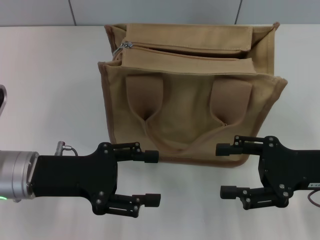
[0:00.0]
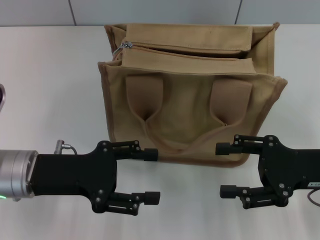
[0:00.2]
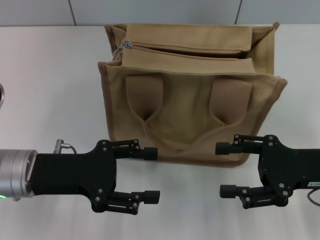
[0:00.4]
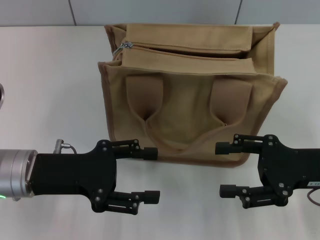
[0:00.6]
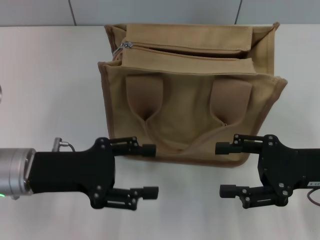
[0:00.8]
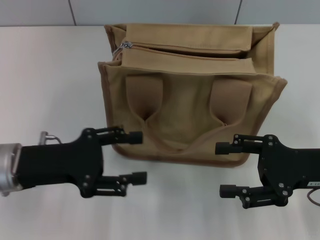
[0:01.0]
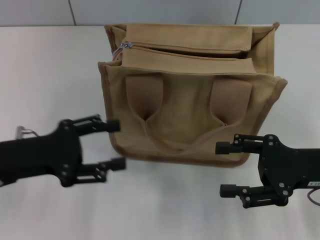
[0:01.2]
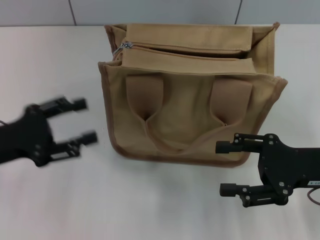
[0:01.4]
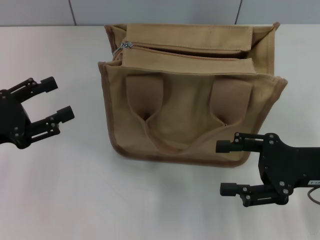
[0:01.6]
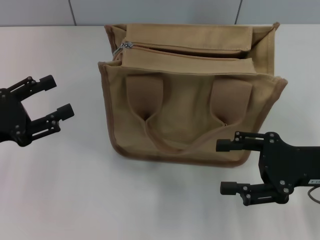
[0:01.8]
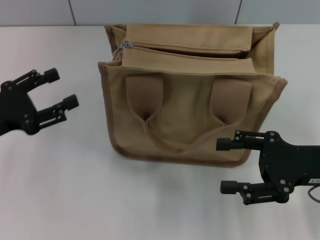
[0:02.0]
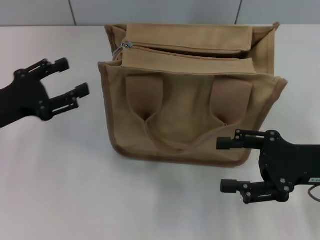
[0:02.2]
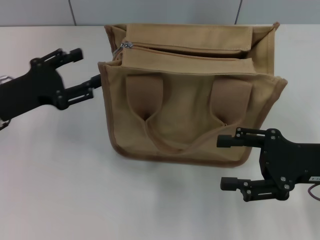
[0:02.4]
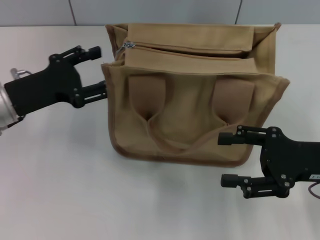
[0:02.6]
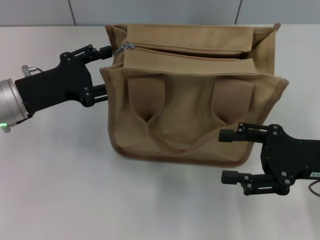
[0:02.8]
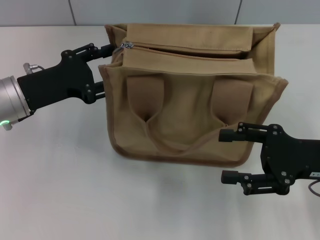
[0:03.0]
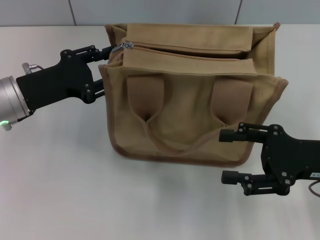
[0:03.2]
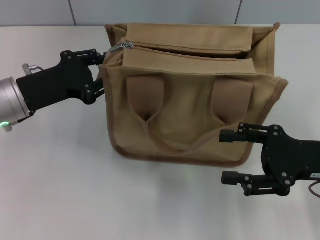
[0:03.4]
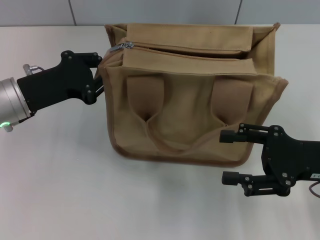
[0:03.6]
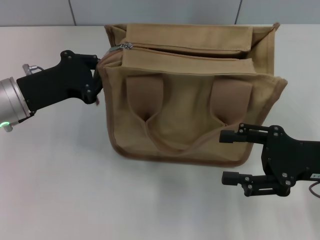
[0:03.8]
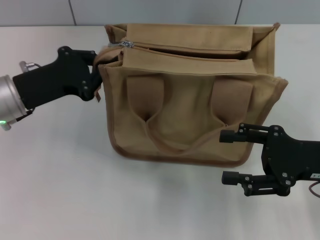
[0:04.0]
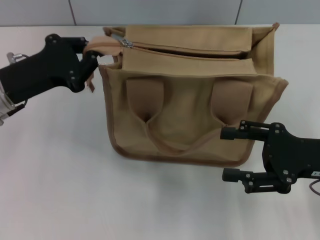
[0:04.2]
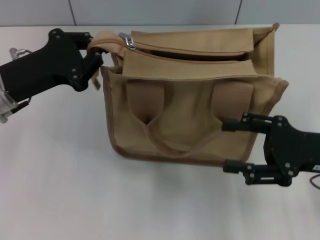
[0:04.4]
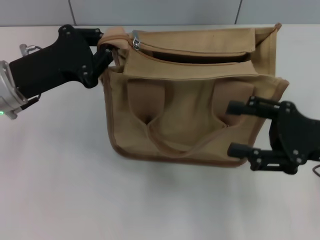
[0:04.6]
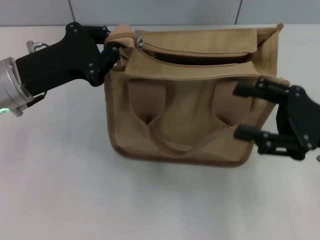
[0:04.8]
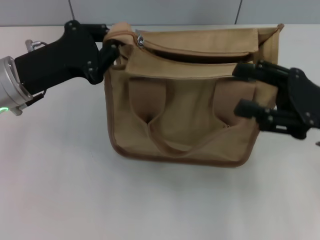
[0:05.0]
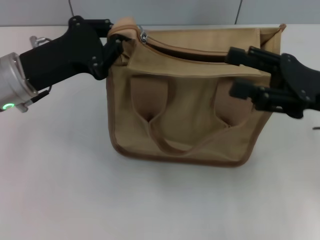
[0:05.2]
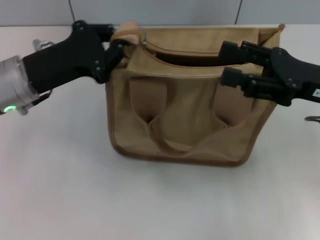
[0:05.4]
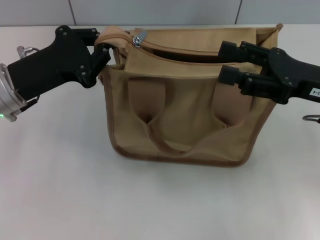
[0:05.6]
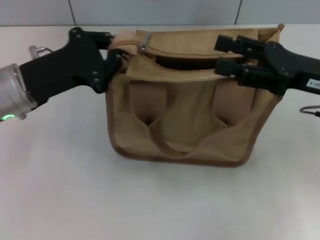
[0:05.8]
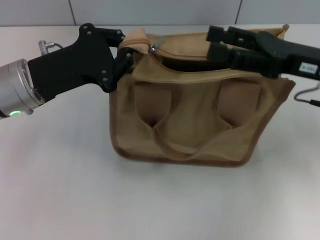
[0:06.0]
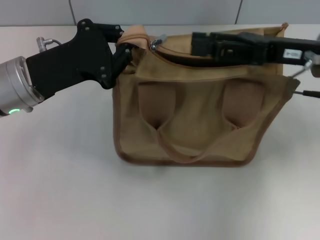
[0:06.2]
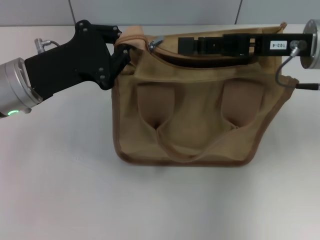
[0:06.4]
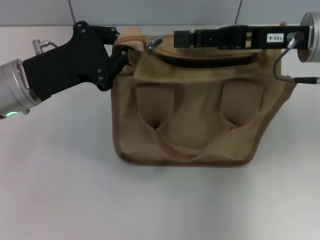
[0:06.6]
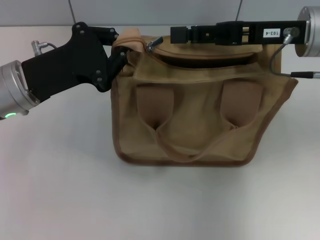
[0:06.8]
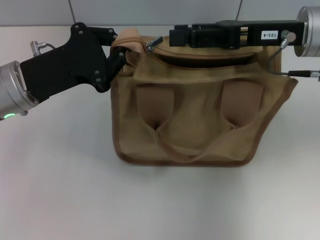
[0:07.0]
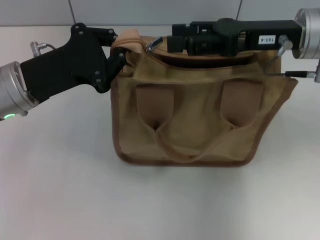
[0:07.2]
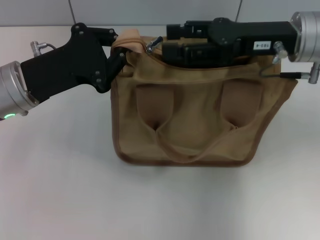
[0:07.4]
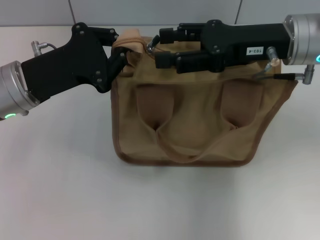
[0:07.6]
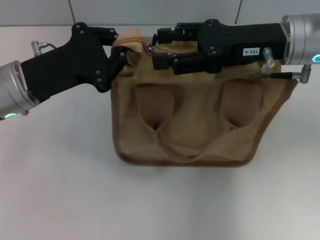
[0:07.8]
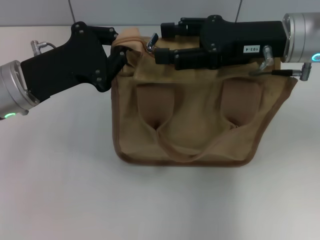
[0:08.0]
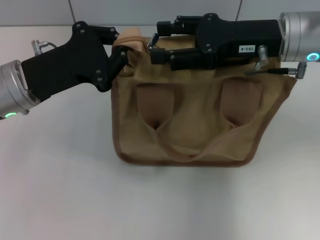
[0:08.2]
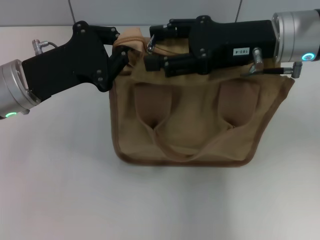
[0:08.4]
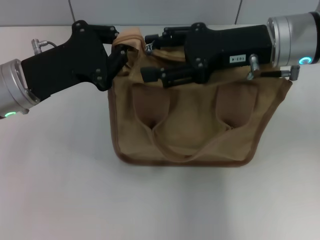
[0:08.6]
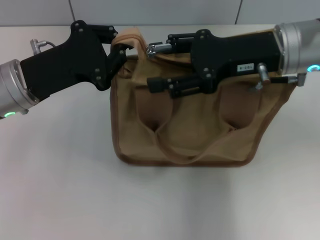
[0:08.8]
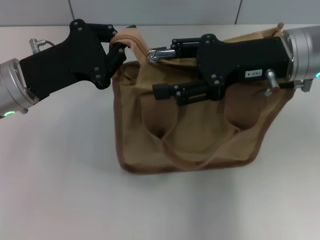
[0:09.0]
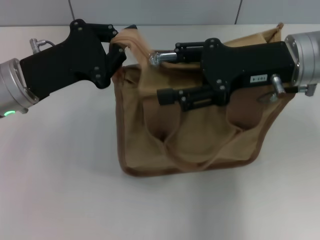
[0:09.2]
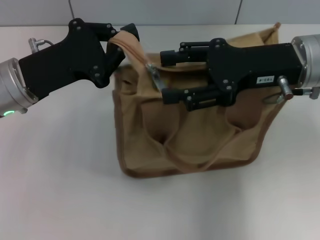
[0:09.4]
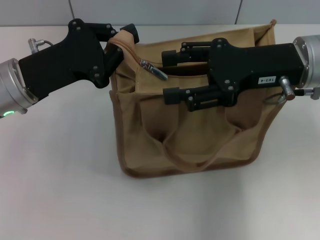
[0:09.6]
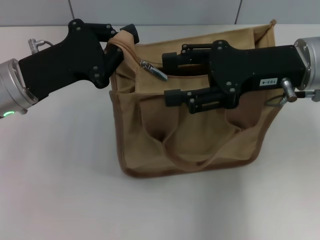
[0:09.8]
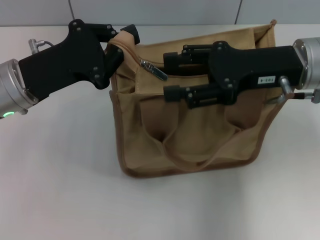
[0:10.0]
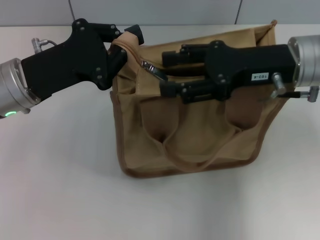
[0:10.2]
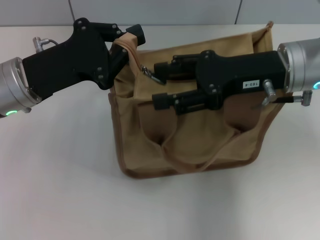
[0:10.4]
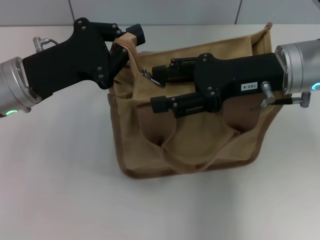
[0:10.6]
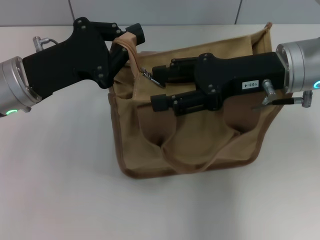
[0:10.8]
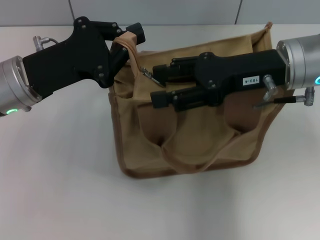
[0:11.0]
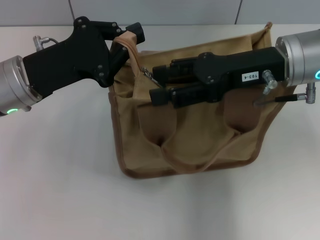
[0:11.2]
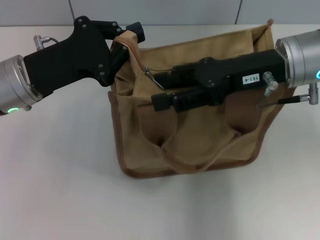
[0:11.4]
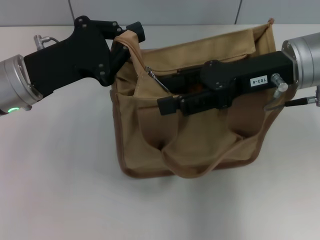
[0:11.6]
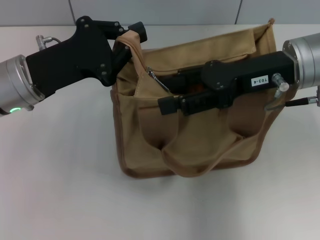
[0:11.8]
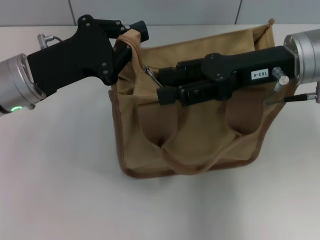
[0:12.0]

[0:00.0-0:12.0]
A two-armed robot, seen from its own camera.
0:00.0 to 0:01.6: The left gripper shifts roughly 10 cm to the left.
0:01.6 to 0:03.0: The left gripper is displaced forward and to the right by approximately 10 cm.
0:03.0 to 0:04.4: The left gripper closes.
0:04.4 to 0:06.0: The right gripper shifts some 10 cm forward and upward.
0:06.0 to 0:07.6: The right gripper moves to the left, some 5 cm.
0:07.6 to 0:12.0: The grippers move only a little.

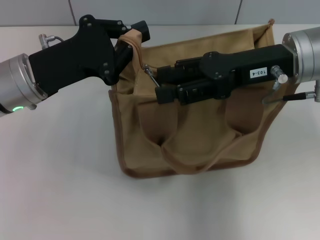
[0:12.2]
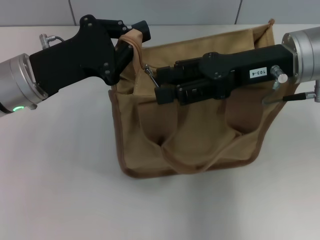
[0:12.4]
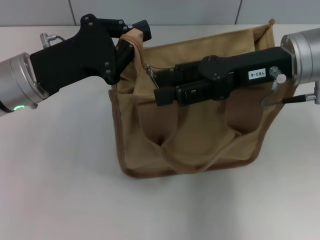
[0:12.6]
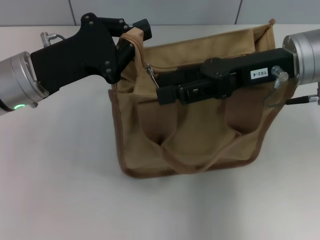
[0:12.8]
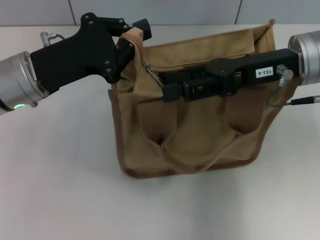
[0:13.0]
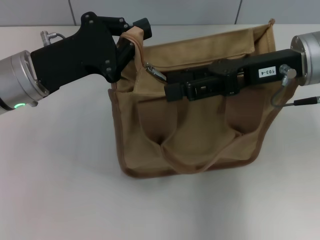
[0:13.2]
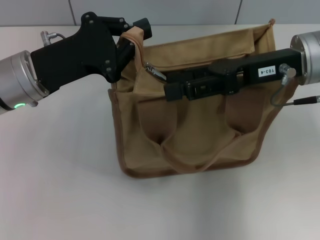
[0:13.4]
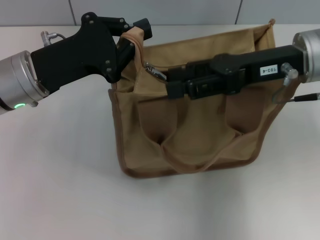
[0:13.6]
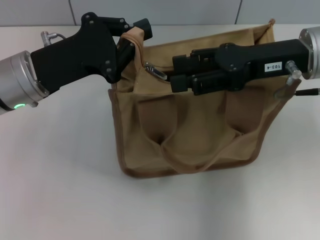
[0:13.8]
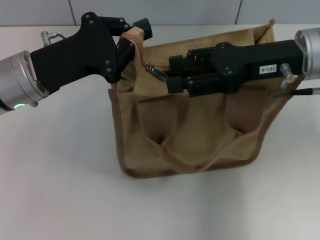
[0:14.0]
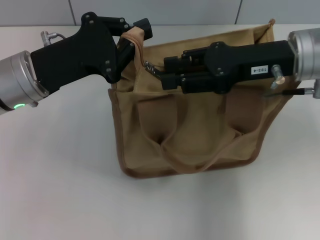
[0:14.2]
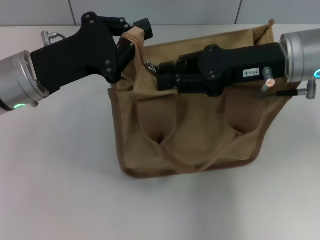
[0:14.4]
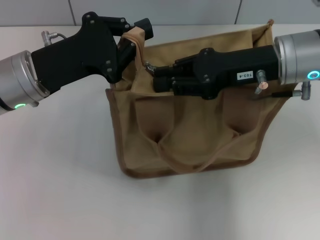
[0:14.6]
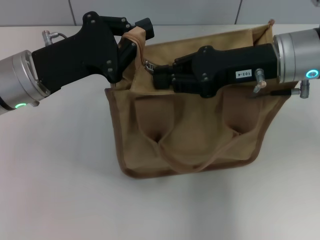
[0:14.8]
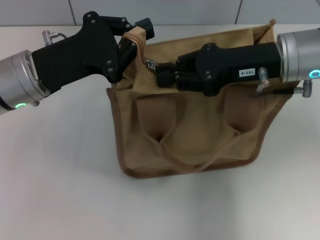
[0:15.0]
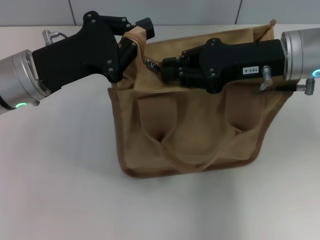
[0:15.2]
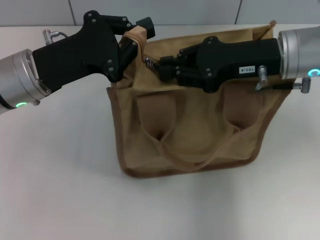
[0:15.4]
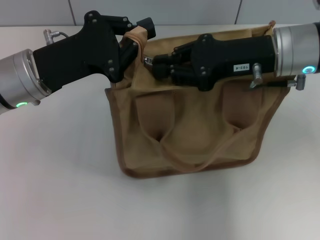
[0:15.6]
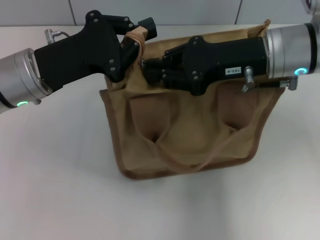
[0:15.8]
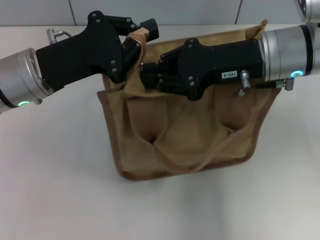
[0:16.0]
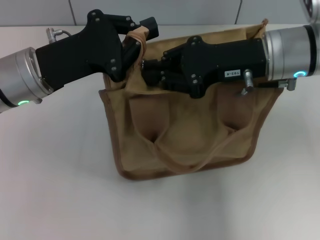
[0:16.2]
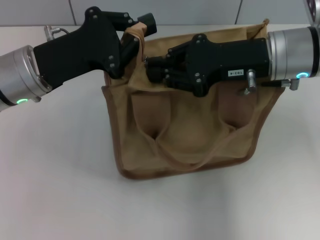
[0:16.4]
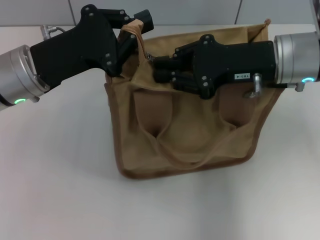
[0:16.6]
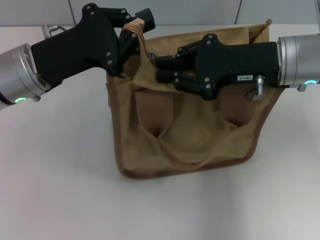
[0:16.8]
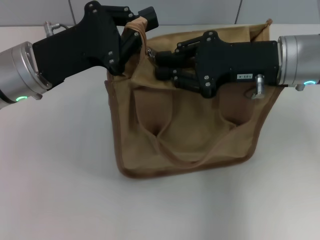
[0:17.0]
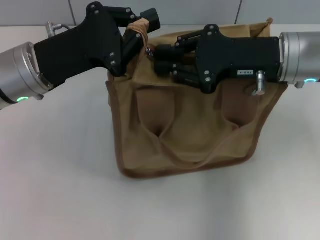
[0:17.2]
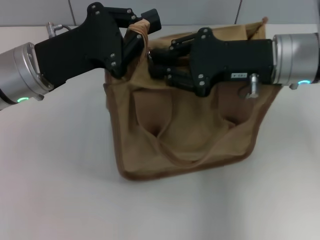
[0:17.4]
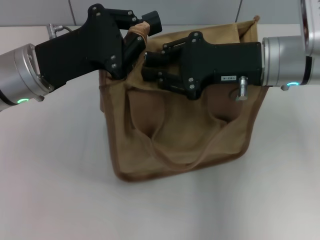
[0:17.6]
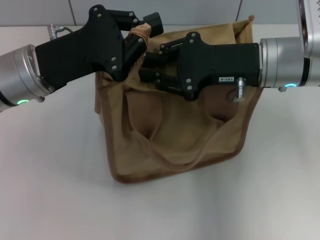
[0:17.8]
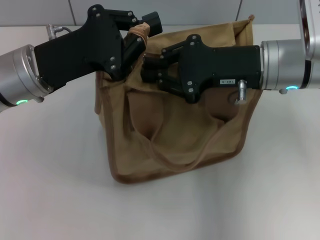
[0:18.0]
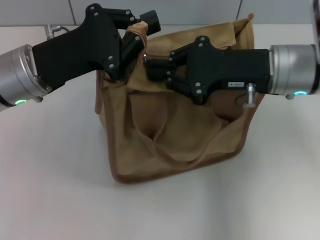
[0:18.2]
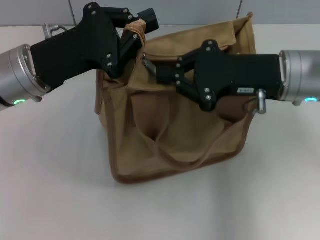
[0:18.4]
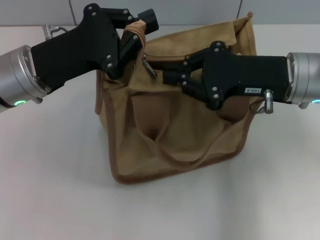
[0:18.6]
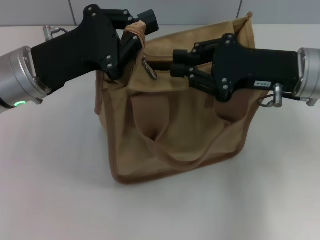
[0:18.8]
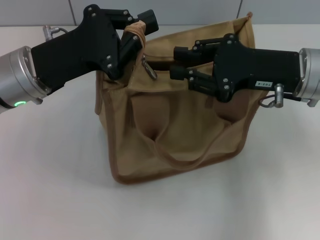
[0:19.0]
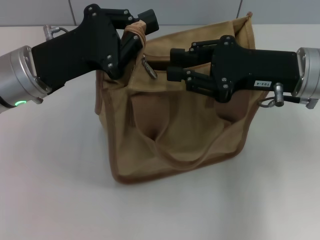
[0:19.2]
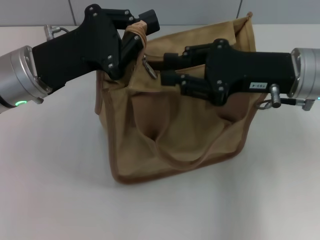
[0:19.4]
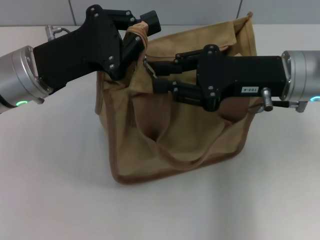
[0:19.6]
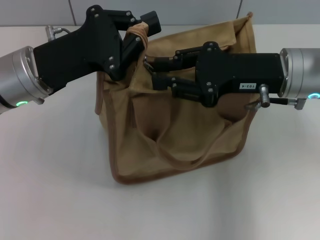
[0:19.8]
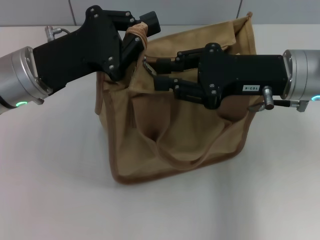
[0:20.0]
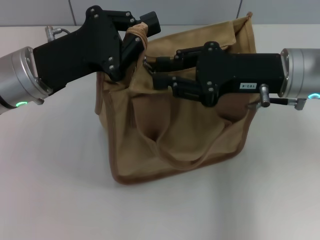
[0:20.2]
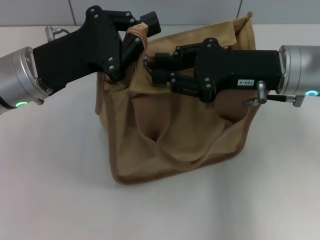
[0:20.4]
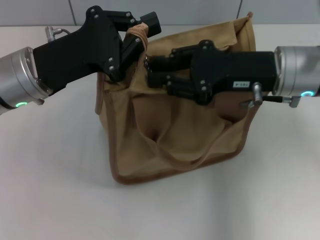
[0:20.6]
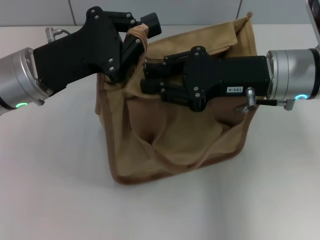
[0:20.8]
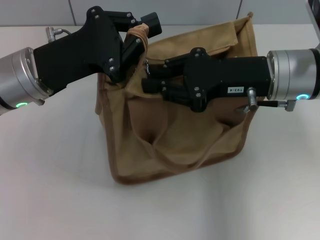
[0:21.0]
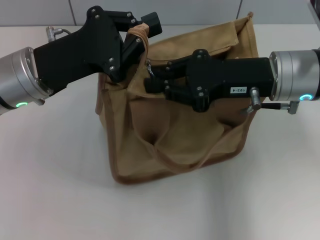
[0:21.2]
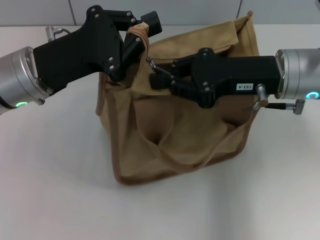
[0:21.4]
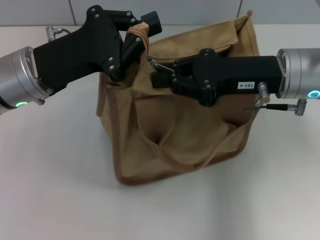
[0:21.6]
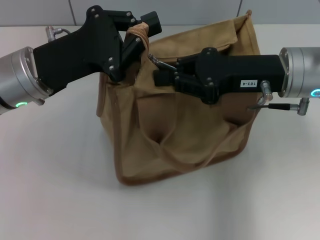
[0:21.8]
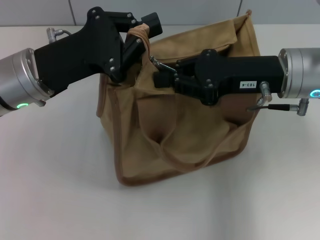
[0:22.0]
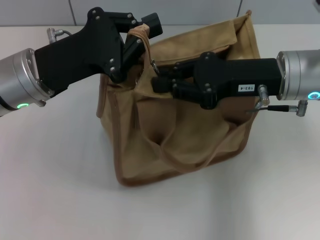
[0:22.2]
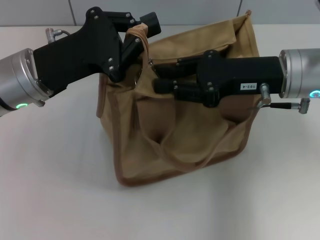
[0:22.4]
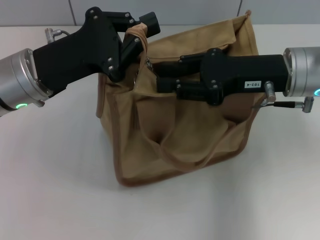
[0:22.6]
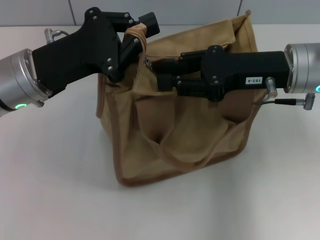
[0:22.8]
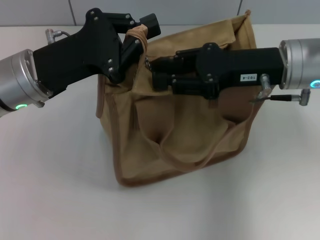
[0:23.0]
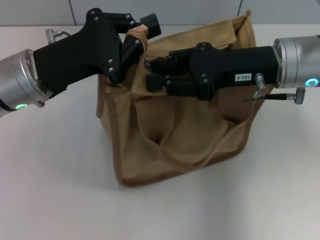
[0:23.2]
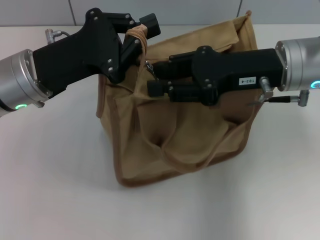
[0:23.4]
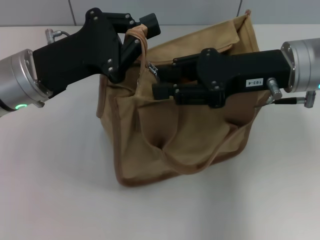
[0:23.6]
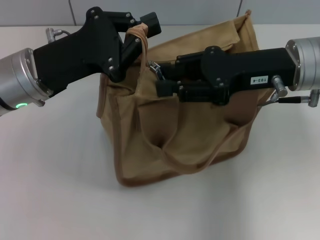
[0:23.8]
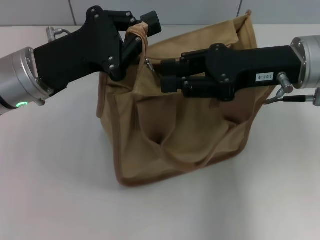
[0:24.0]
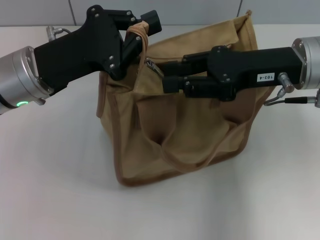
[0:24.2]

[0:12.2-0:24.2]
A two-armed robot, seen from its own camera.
0:12.2 to 0:13.8: There are only small adjustments of the grippers.
0:13.8 to 0:15.2: The right gripper closes.
0:15.2 to 0:16.6: The grippers move only a little.
0:16.6 to 0:22.6: There are only small adjustments of the grippers.
0:22.6 to 0:24.2: The grippers make only small movements.
